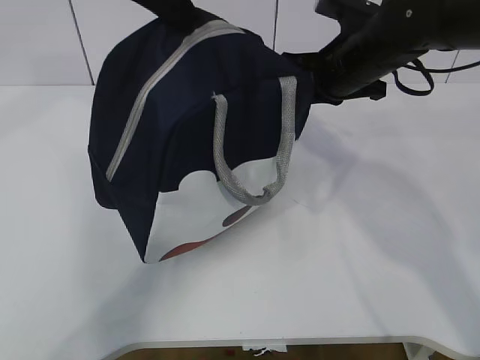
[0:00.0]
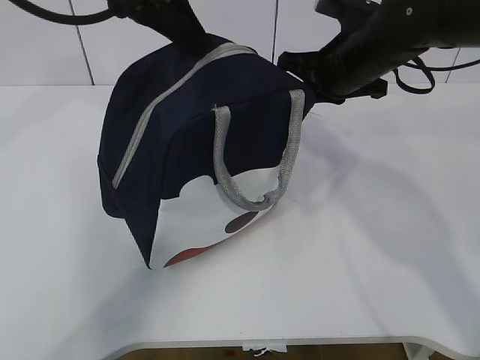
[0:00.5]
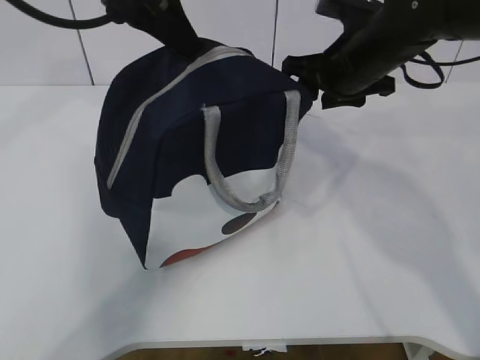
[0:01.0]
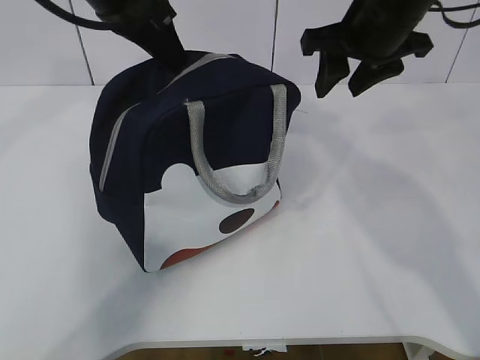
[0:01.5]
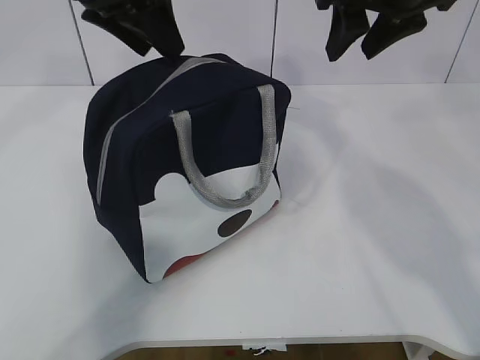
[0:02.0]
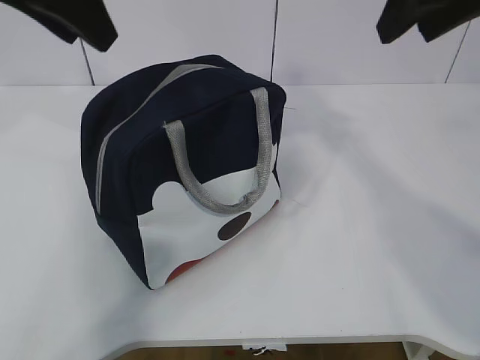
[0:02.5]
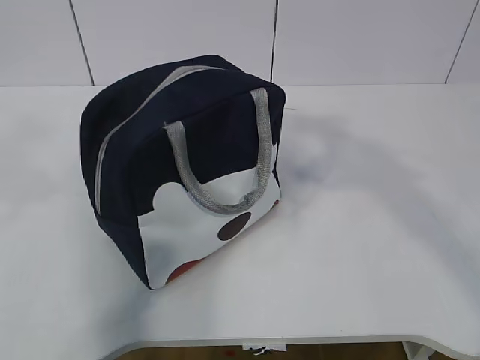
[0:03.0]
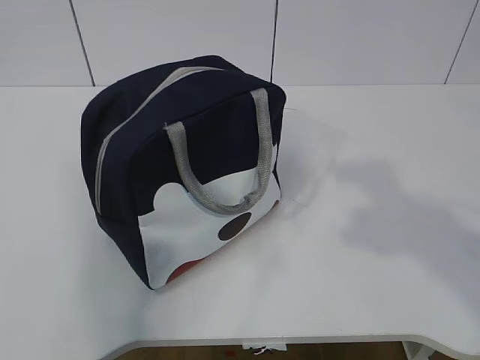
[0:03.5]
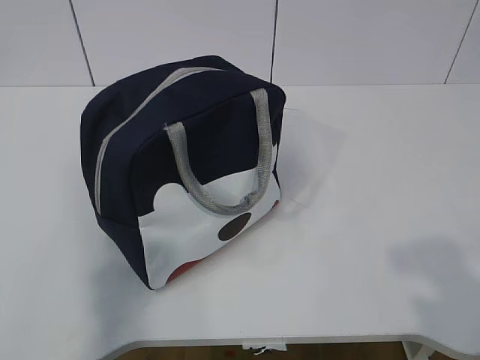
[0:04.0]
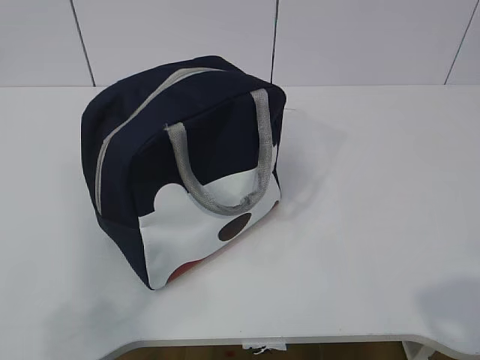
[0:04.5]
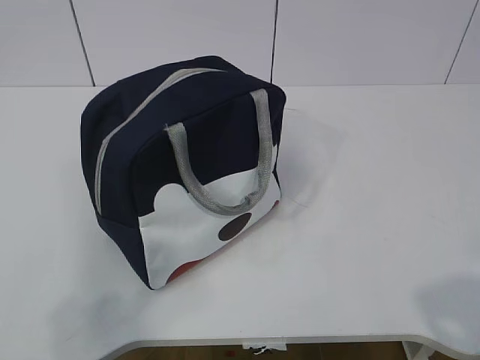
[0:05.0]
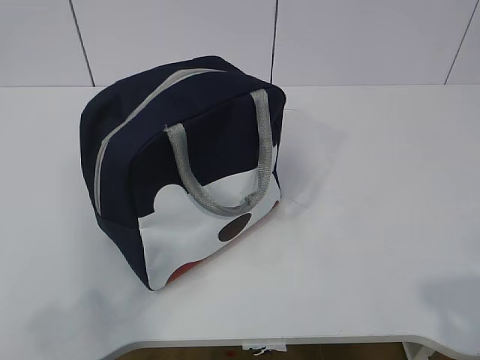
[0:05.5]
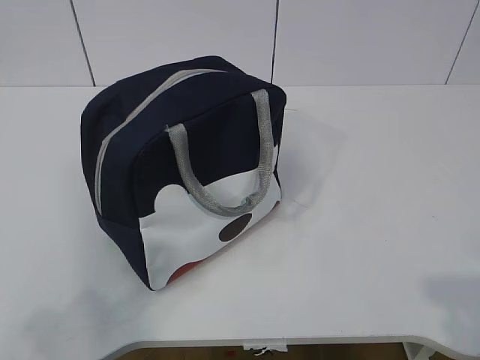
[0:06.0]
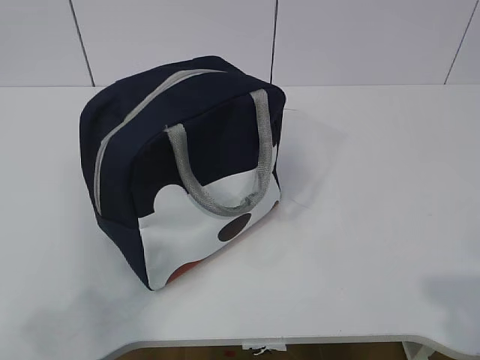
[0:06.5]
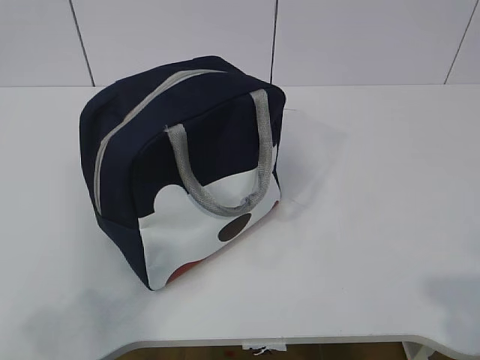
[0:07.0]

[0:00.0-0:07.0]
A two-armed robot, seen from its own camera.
0:00.0 to 0:02.0: The left gripper ends up roughly 5 cm from where it was, and opens; the right gripper shifts about 10 cm upward, and opens.
0:02.0 to 0:03.5: The left gripper heads backward and to the left, covering approximately 35 cm. Meanwhile the right gripper travels backward by some 30 cm.
0:03.5 to 0:05.0: The two grippers go approximately 15 cm downward and backward.
